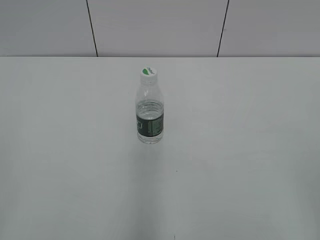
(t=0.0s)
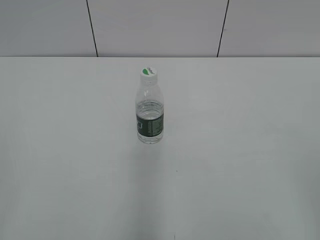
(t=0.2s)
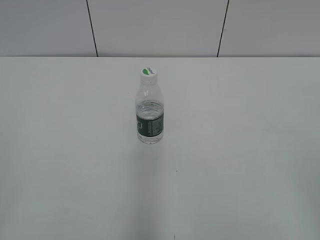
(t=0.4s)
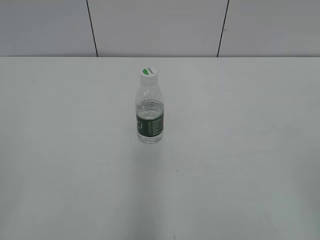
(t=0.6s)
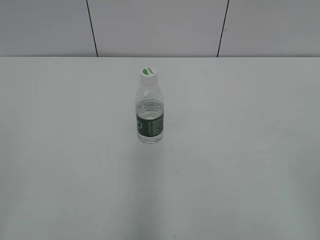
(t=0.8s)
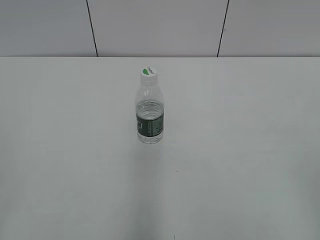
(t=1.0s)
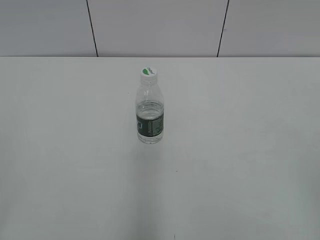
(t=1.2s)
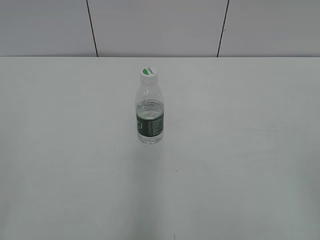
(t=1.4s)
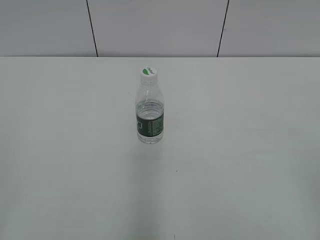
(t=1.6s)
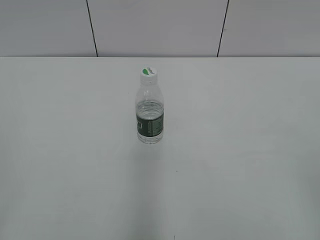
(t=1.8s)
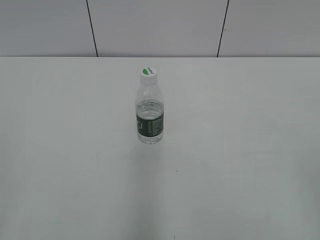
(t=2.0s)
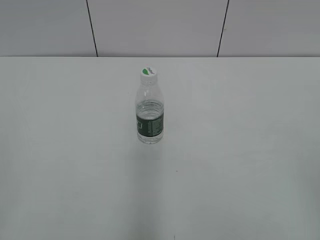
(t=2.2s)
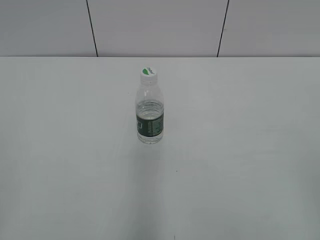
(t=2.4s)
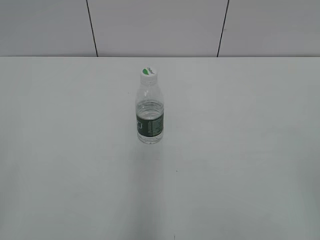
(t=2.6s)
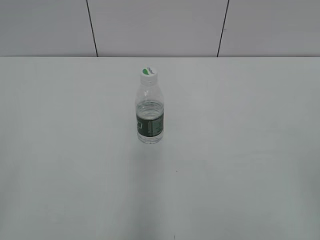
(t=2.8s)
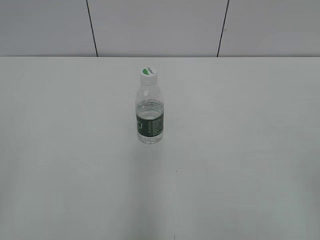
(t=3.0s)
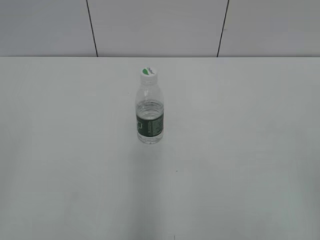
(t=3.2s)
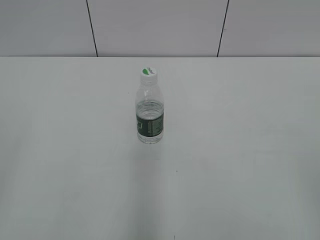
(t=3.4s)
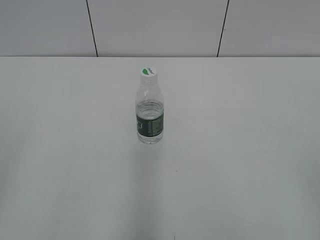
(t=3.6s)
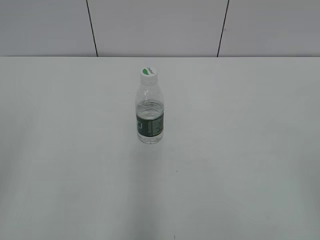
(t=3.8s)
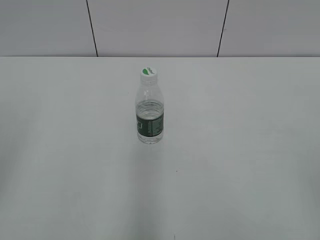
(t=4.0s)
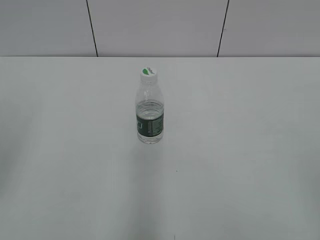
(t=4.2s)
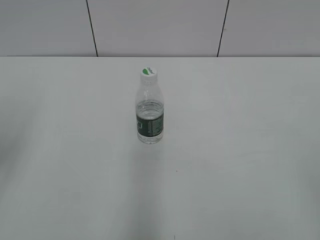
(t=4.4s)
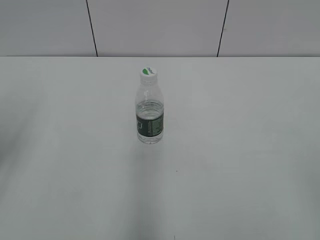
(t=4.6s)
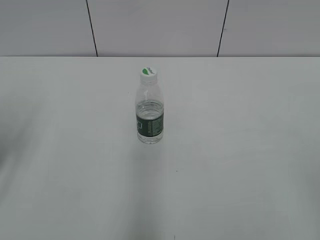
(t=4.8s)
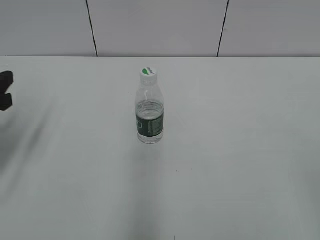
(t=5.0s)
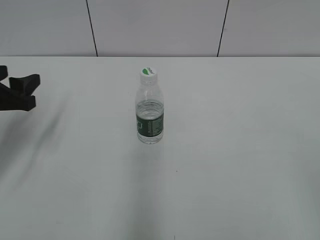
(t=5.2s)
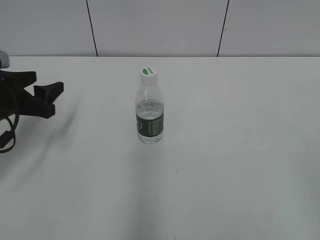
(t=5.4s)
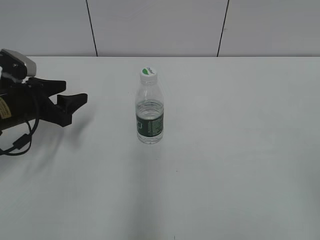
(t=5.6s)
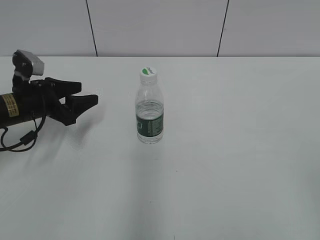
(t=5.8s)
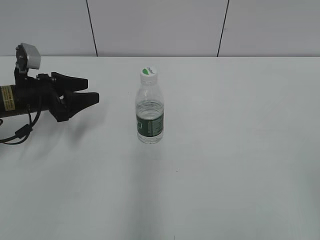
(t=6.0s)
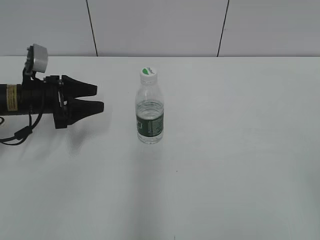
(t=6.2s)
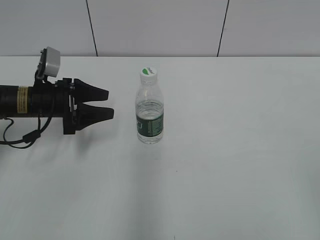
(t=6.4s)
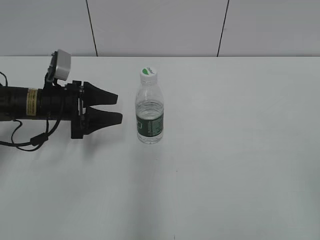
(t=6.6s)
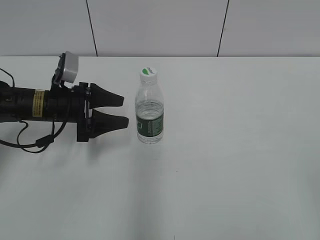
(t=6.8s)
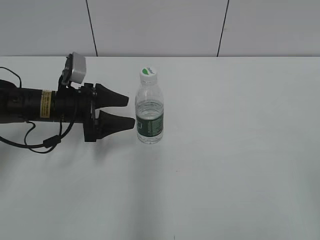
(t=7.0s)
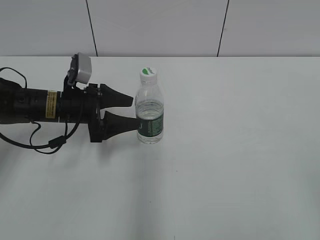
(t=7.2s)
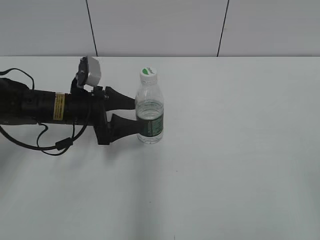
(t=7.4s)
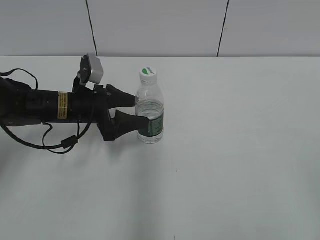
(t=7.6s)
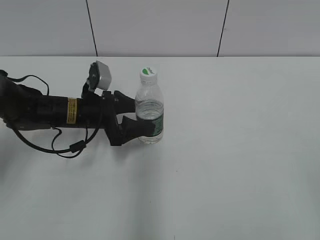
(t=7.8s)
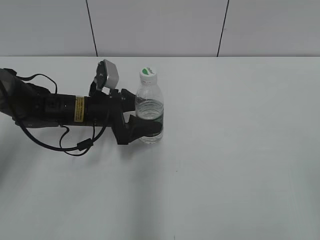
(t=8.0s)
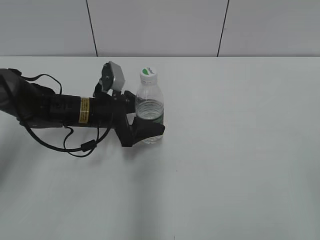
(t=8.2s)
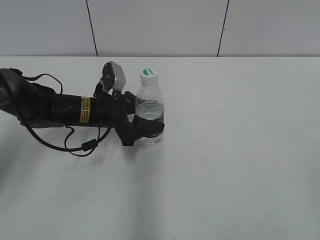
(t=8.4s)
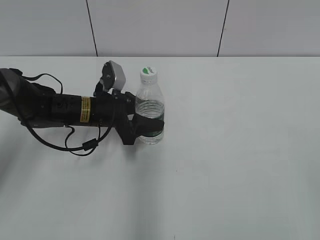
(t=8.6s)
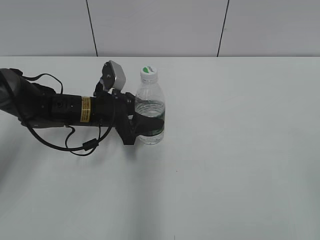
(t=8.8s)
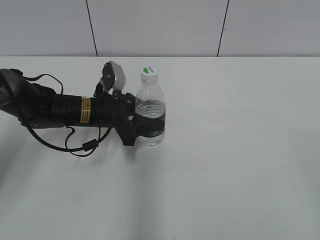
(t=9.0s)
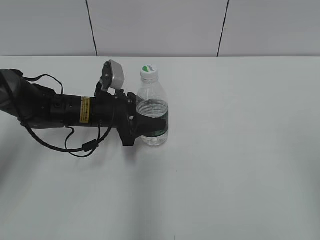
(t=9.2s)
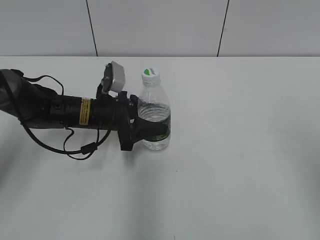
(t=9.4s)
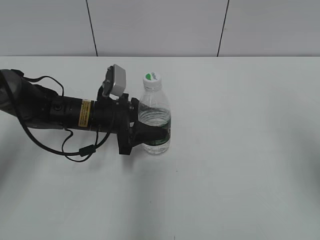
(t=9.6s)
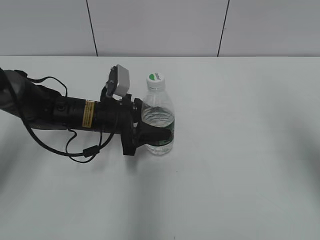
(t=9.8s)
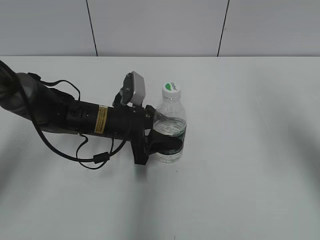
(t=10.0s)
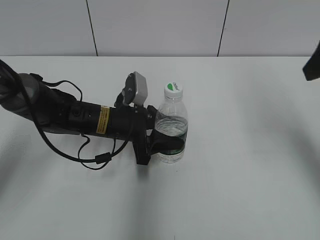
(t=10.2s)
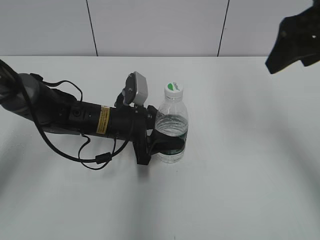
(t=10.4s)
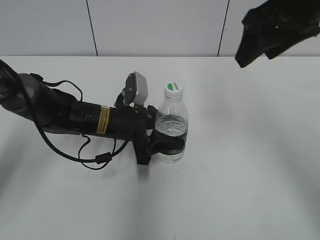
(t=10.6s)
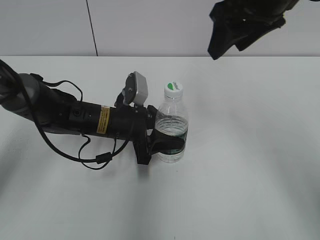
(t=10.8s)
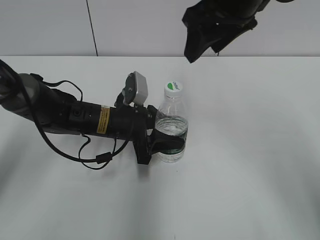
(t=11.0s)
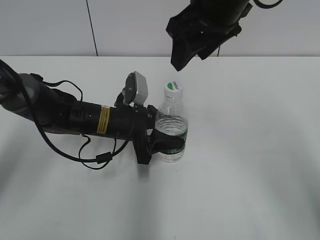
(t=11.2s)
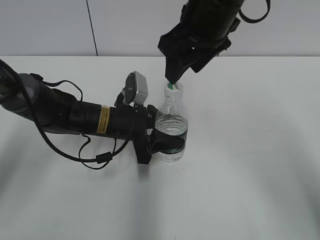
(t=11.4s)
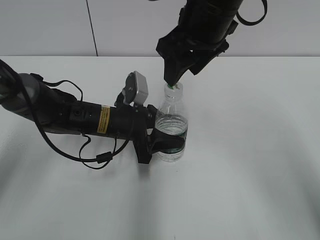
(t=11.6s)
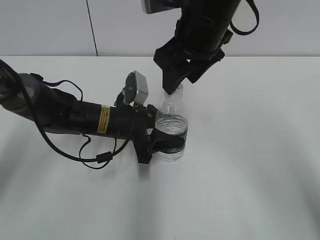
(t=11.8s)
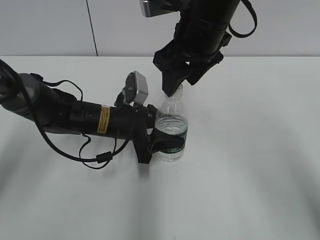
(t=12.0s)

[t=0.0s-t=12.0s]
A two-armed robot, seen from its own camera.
Step, t=0.0s to t=10.4s: Grasp the bottle and move it to the center of the table with the left gripper.
t=4.4s to t=6.0s: The left gripper shifts about 25 cm forward and downward.
t=6.0s to t=7.6s: The left gripper goes some 10 cm to the right.
t=7.6s to t=9.0s: The left gripper closes up.
t=9.0s to t=10.4s: The right gripper moves forward, some 30 cm.
t=10.4s to t=12.0s: The right gripper heads to the left, covering roughly 15 cm.

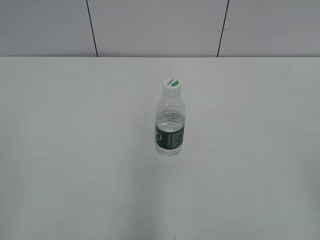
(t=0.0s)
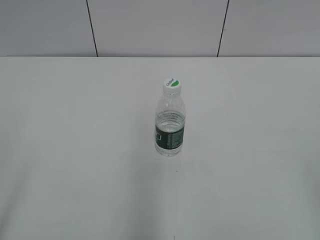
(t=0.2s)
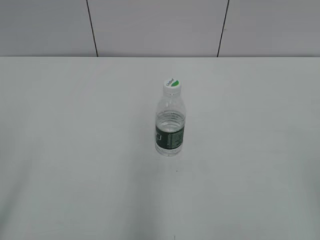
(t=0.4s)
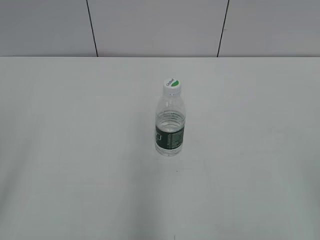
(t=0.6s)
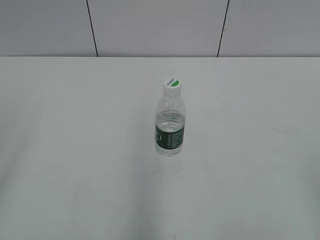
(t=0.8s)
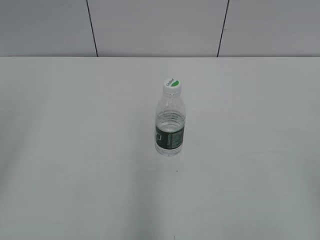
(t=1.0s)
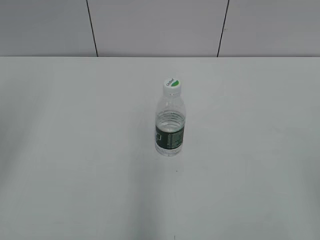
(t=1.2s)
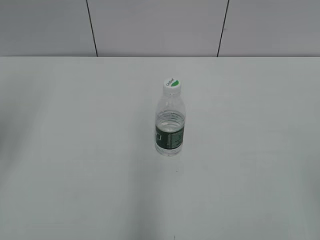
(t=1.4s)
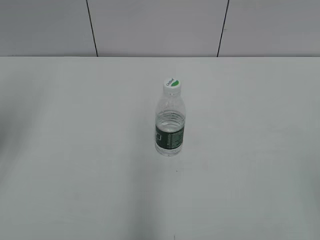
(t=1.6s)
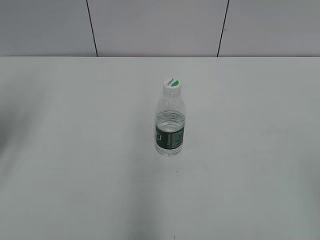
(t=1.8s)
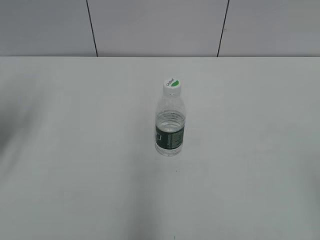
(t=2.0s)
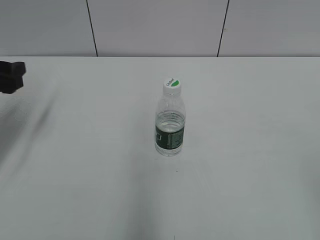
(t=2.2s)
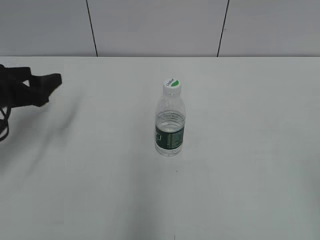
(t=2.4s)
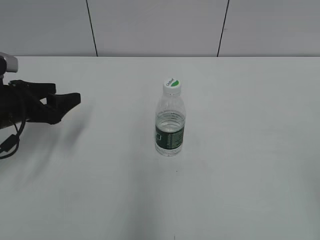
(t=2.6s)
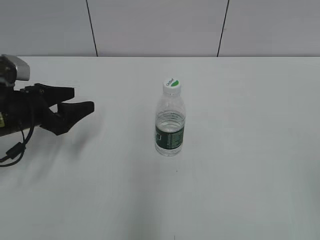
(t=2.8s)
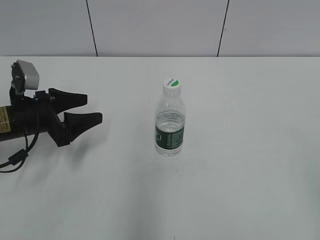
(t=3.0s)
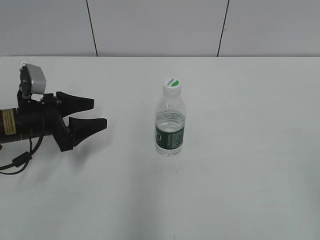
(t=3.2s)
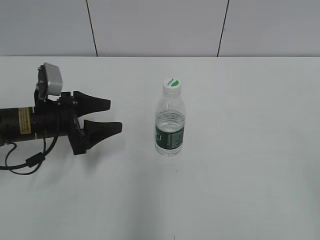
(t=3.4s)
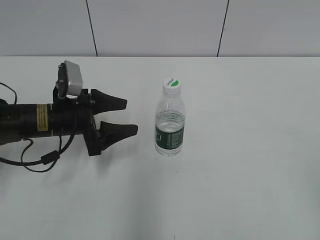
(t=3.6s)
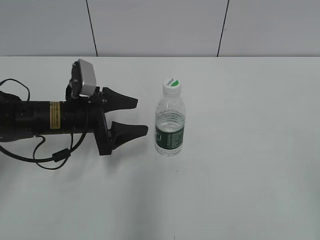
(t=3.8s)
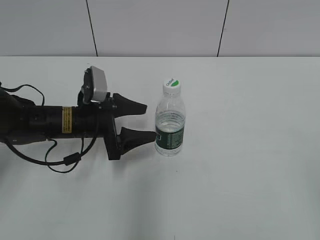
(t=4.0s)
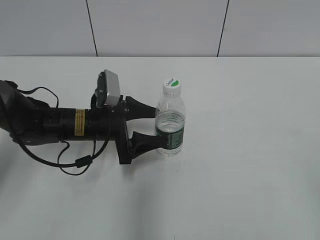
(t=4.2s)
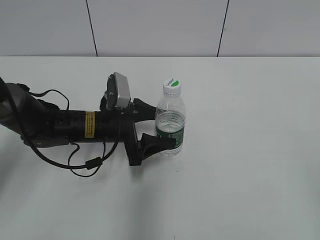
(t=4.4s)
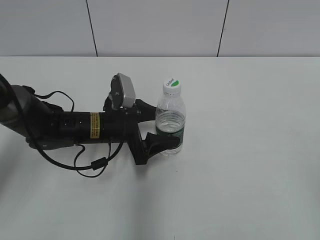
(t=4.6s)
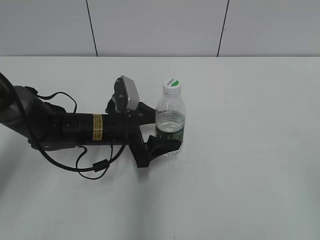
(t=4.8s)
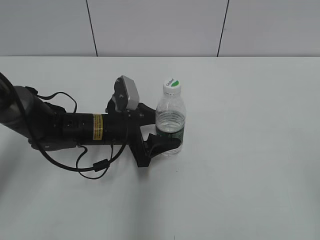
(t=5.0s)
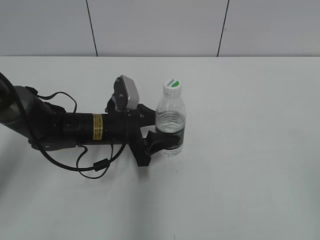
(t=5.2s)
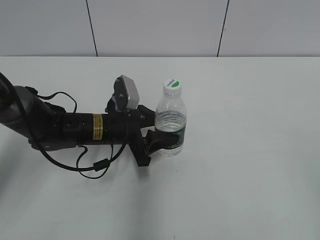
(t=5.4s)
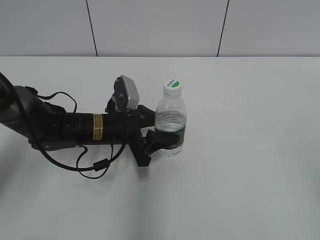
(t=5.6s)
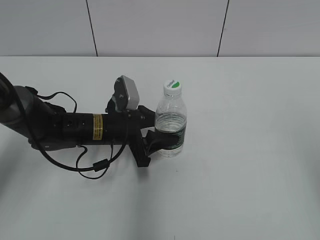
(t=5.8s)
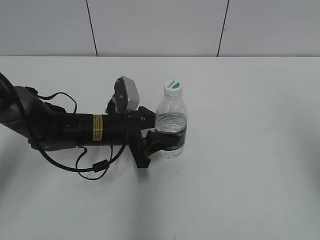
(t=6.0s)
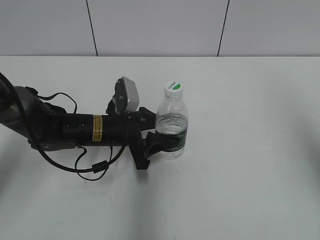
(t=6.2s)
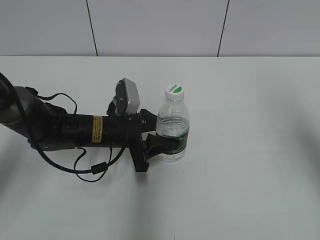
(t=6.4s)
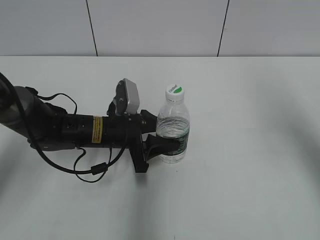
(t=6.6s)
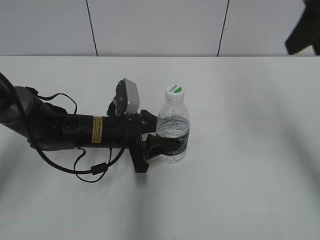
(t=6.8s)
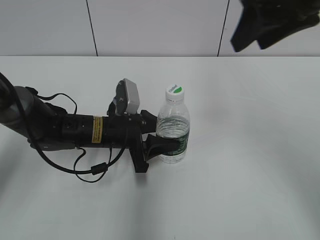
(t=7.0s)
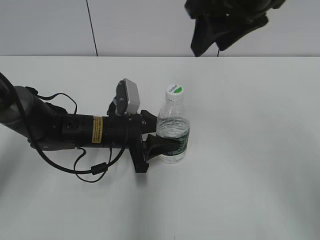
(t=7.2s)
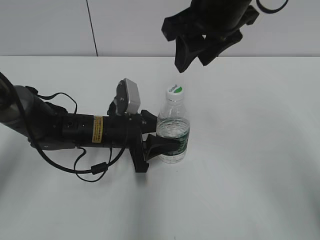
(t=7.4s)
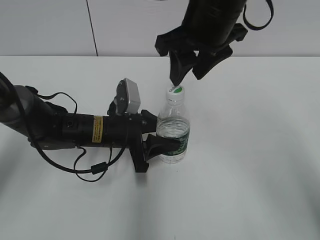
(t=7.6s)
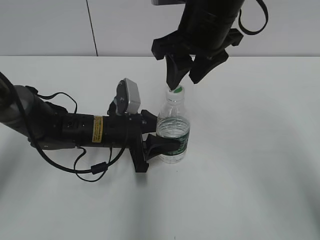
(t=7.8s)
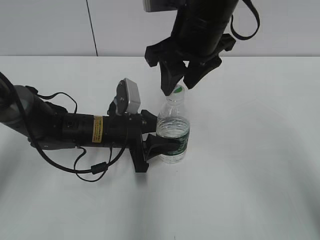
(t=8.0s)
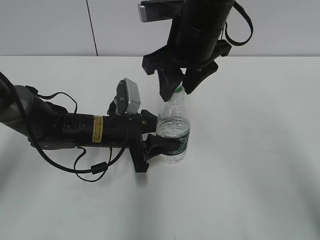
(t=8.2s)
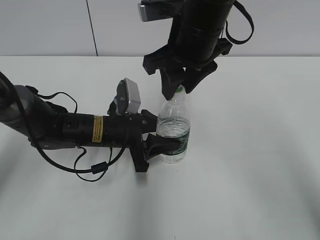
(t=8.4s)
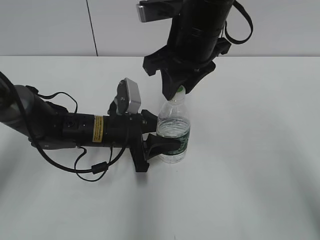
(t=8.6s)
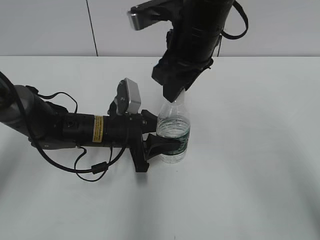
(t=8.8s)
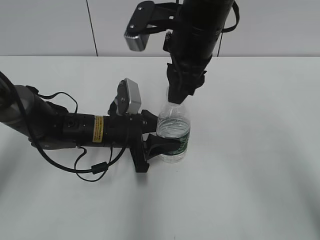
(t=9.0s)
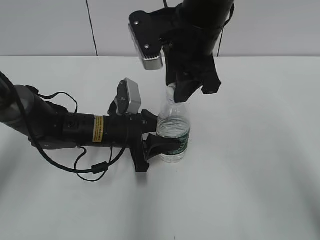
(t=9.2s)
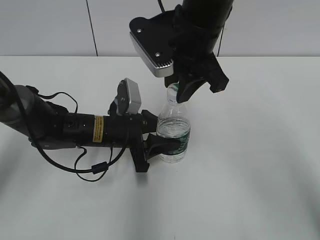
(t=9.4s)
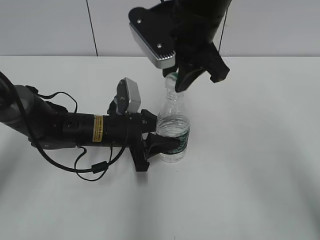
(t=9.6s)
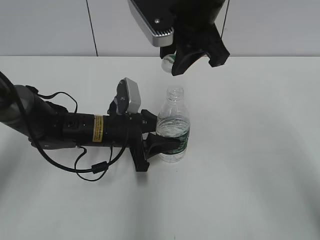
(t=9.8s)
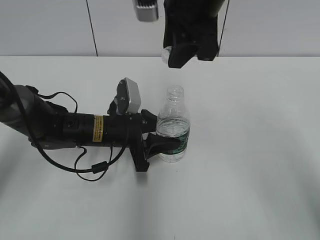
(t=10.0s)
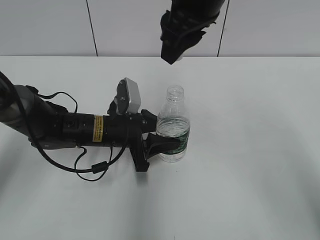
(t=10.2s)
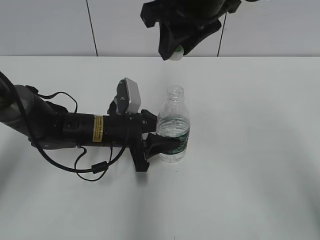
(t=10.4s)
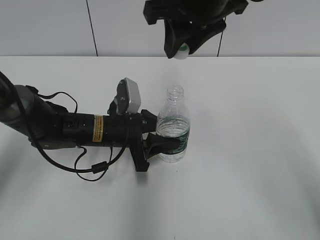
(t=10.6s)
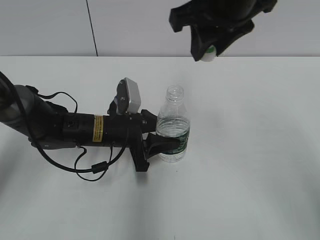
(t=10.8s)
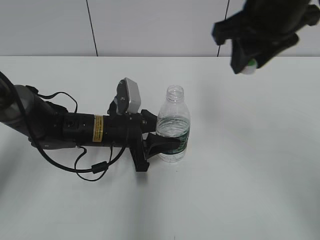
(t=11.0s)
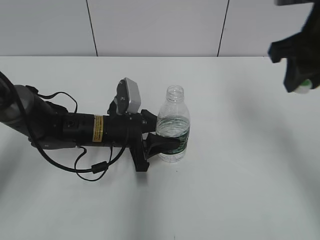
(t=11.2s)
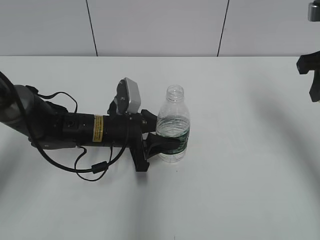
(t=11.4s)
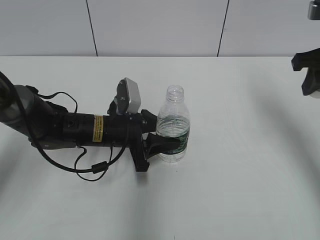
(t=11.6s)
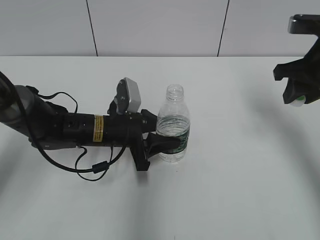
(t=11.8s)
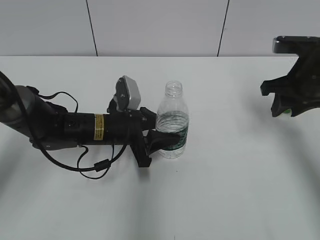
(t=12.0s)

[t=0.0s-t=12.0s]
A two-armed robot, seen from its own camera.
Step, t=0.0s to t=6.4s: Grasp the bottle and move it to the center of the table with the left gripper.
Step, t=6.8s to t=10.0s: Unscrew the bottle cap with the right gripper while holding the bottle with the left gripper.
t=0.0s to t=1.6s: The left gripper heads forward, covering roughly 20 cm, and opens up.
t=1.6s to t=3.0s: The left gripper moves downward, forward and to the right, roughly 20 cm.
t=3.0s to t=4.4s: The left gripper shifts approximately 15 cm to the right.
t=4.4s to t=6.0s: The right gripper heads forward and upward, covering approximately 15 cm, and closes. Meanwhile the left gripper closes.
t=6.0s to t=7.6s: The right gripper moves to the left and forward, approximately 30 cm.
t=9.0s to t=10.4s: The right gripper heads upward, covering approximately 5 cm.
t=10.4s to t=12.0s: The right gripper is displaced to the right and downward by approximately 25 cm.
